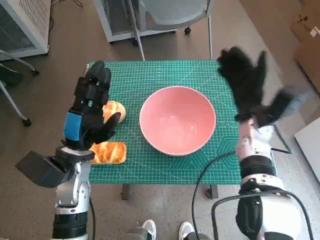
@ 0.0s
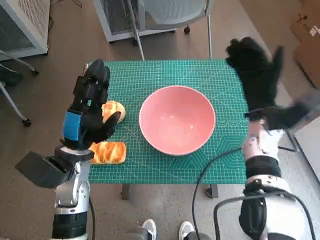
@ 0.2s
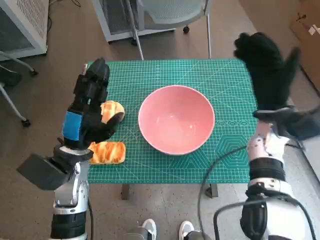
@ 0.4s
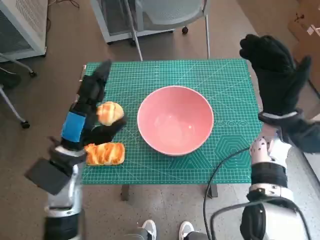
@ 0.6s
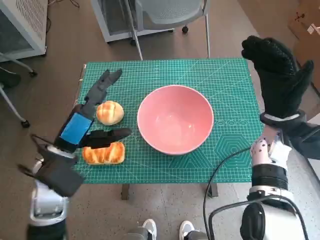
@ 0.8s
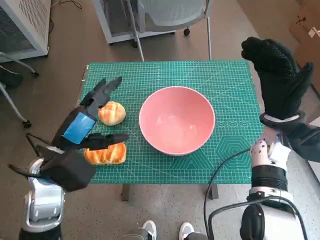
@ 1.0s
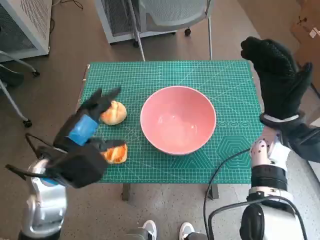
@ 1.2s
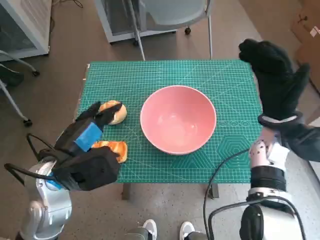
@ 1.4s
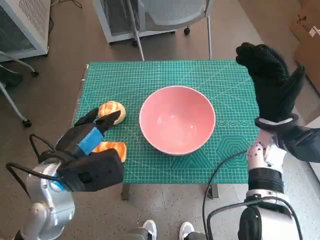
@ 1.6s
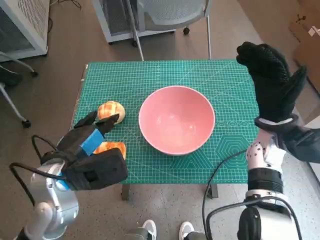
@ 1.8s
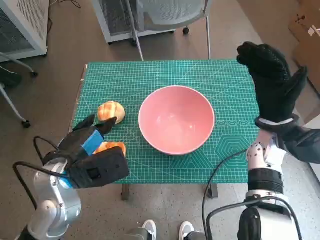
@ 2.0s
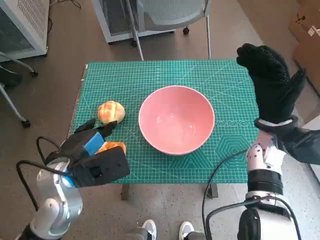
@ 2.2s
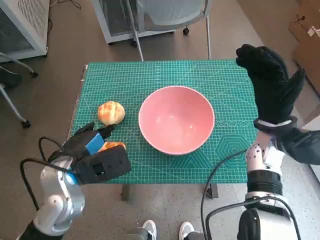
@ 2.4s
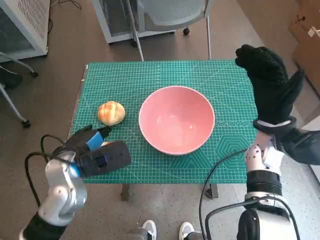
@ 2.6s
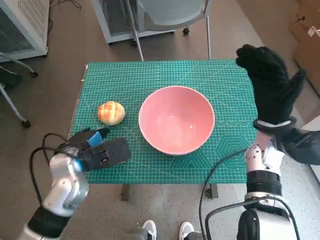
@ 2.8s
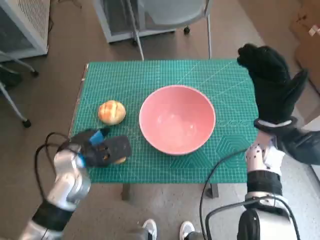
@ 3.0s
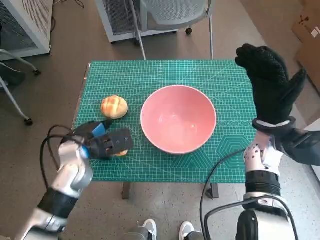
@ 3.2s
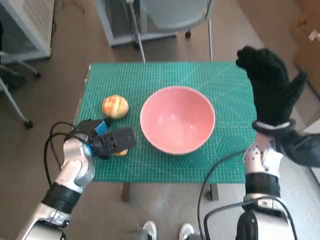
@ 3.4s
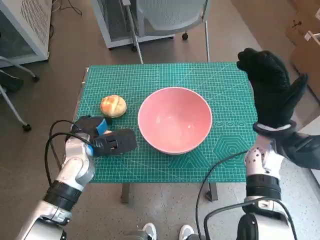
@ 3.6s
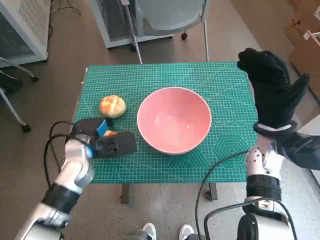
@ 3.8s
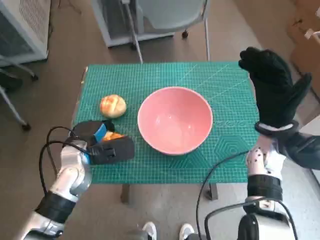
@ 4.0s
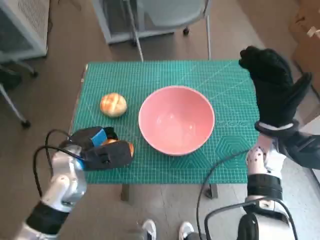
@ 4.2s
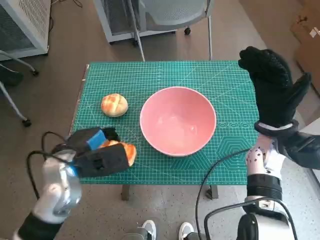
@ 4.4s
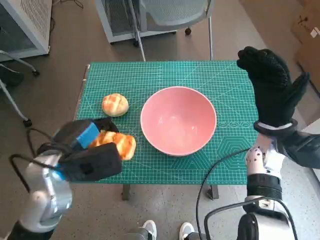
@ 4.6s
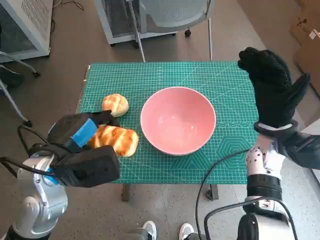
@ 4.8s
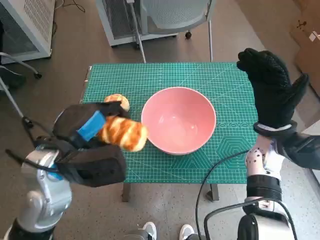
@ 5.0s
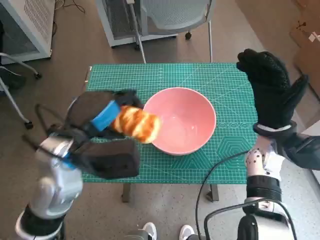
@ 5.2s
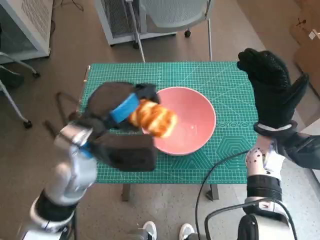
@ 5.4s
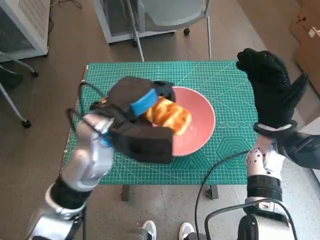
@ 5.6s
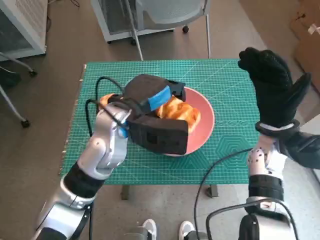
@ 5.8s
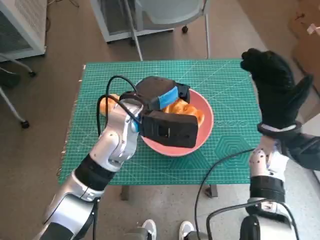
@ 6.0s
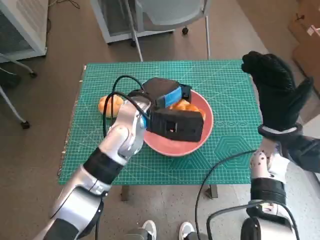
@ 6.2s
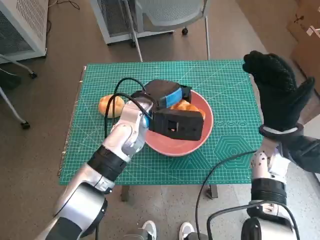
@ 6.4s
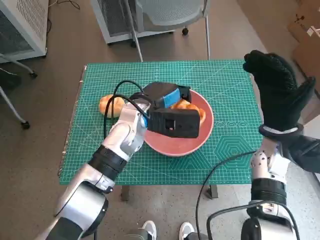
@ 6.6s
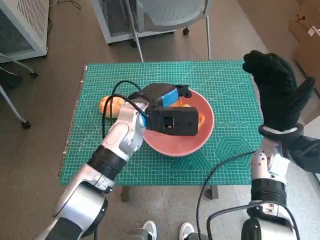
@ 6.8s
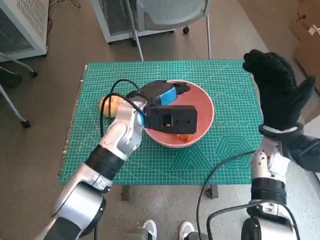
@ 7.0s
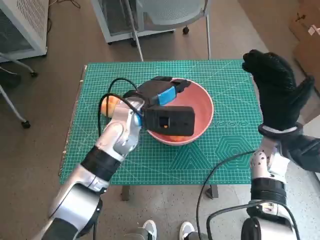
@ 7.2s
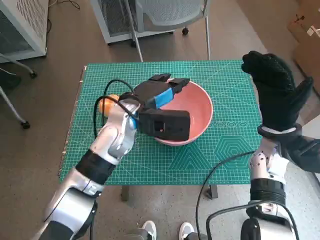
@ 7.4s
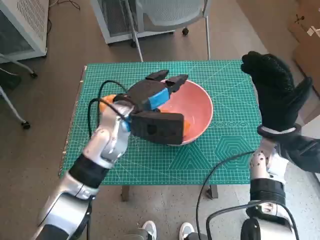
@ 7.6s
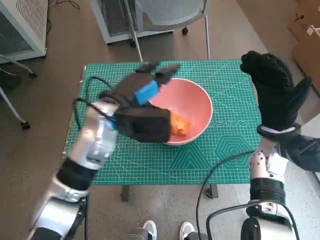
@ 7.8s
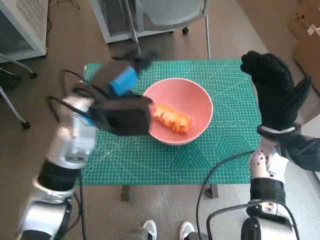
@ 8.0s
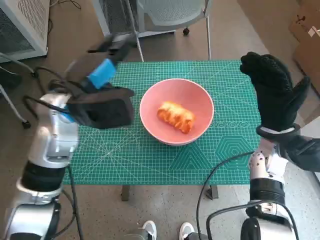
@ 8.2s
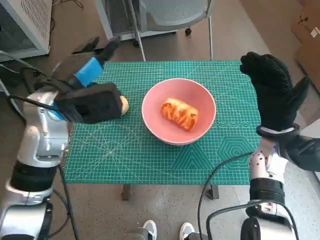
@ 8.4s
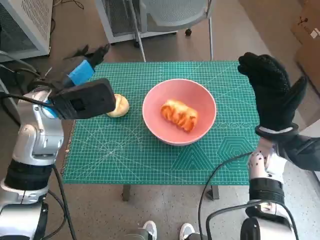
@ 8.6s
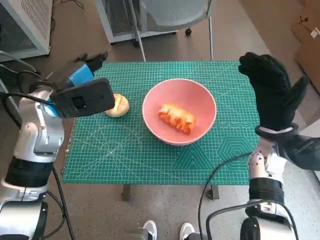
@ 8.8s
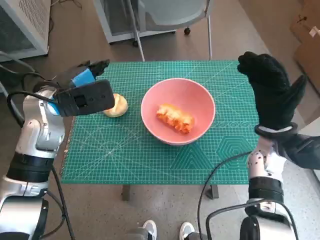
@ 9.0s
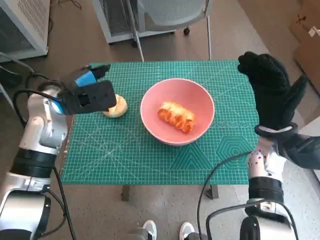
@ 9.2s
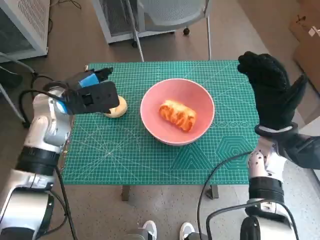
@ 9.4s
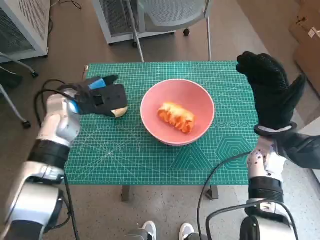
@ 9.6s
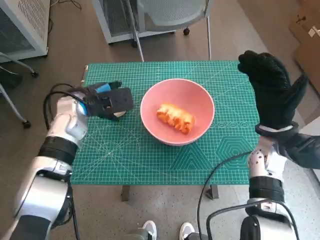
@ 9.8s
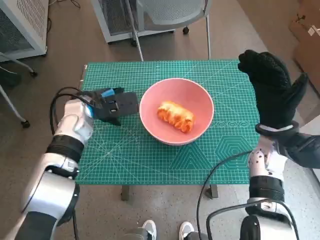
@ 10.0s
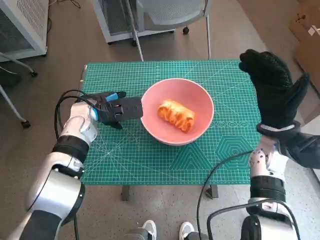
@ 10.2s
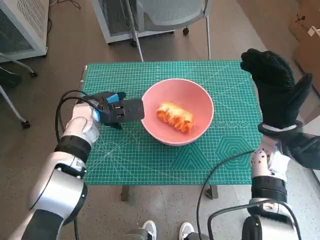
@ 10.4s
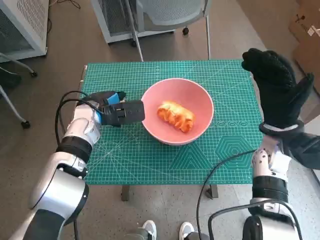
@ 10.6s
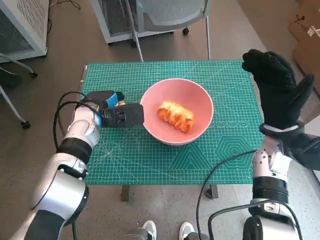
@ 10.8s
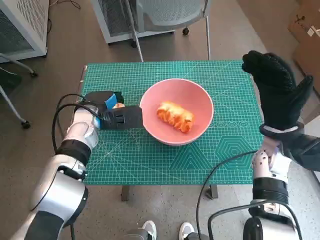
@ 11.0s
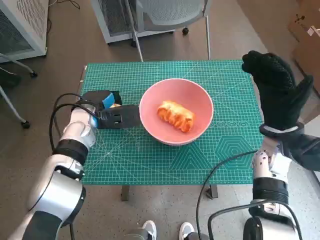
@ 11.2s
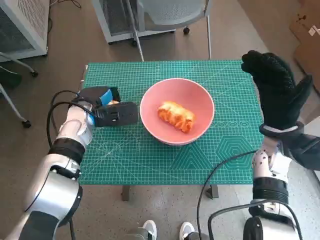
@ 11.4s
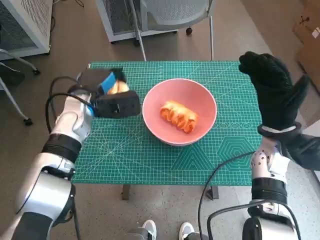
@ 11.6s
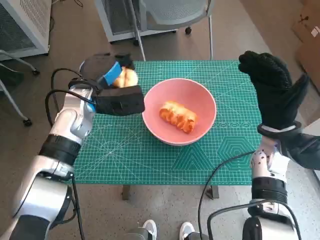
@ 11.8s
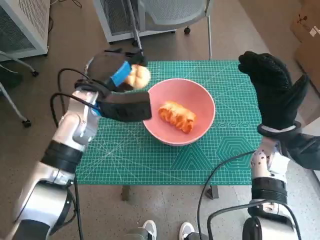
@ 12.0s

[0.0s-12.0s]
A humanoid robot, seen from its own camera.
Step, 0.0s to 3.8s: Grasp the long bread with left hand.
Step, 4.0s to 7.2s: Place the long bread in pink bowl with left hand.
Step, 7.4s to 11.0s: Grasp the round bread with left hand.
0.0s to 1.6s: The left hand moves upward, some 5 cm.
1.6s to 3.0s: The left hand shifts some 10 cm downward and forward.
3.0s to 4.4s: There are only small adjustments of the hands.
4.4s to 6.0s: The left hand travels to the right, forward and upward by approximately 15 cm.
6.0s to 7.6s: The hands move only a little.
7.6s to 9.0s: The left hand is displaced to the left by approximately 10 cm.
9.0s to 10.4s: The left hand goes roughly 10 cm downward.
10.4s to 12.0s: The left hand moves upward, approximately 5 cm.

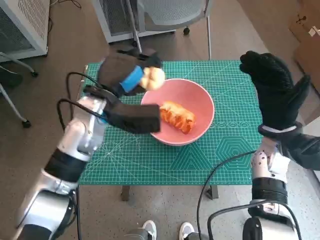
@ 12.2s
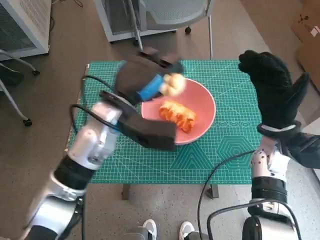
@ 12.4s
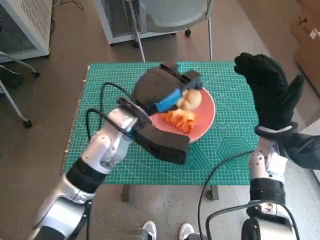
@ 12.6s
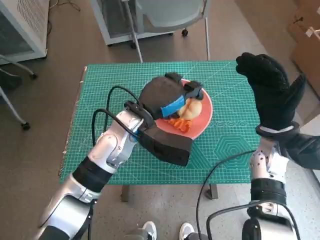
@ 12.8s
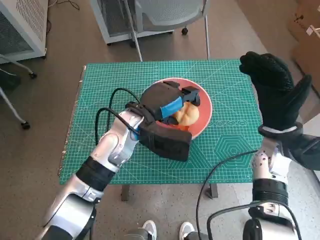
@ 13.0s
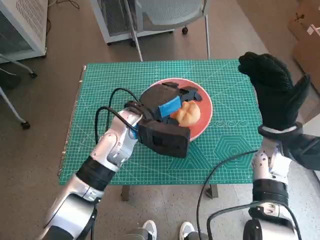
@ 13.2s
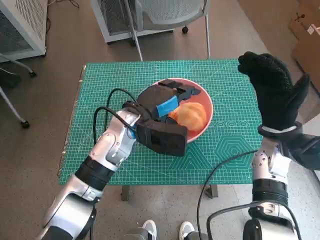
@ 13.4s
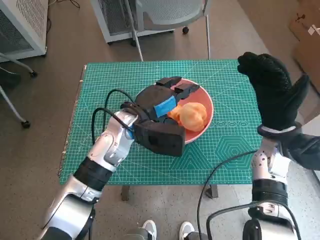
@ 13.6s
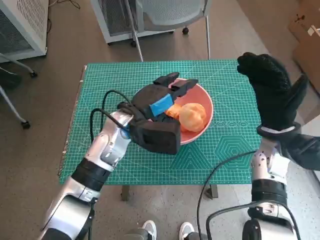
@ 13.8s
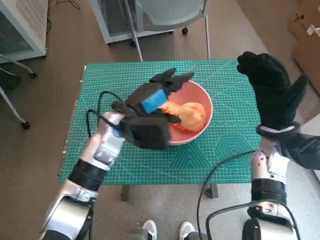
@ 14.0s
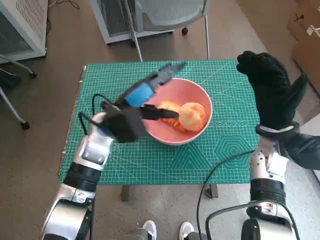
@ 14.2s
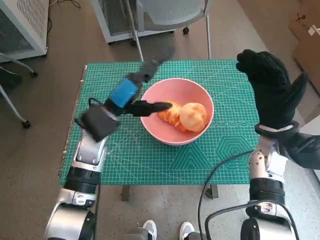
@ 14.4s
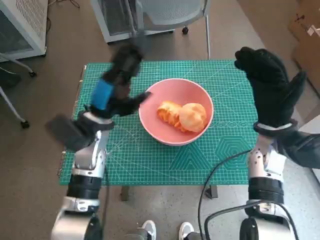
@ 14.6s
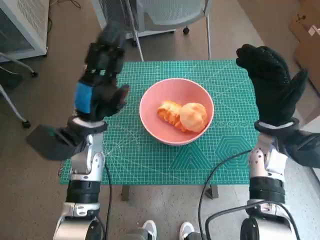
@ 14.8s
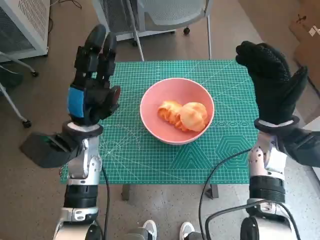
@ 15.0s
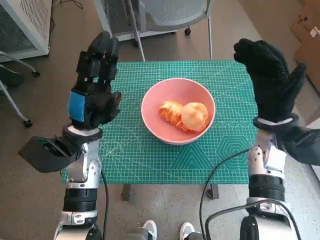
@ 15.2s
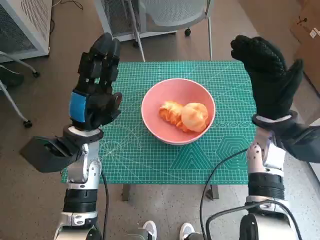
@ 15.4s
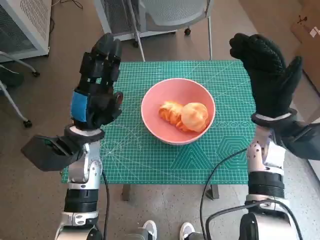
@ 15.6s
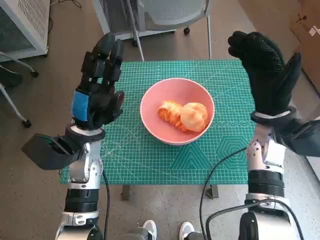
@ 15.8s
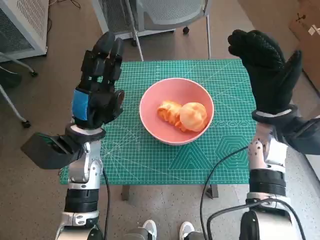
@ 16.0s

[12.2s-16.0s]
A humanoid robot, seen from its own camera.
Step, 12.2s to 13.6s: Place the round bread in pink bowl with left hand.
12.2s to 13.4s: The left hand travels to the right by approximately 5 cm.
13.4s to 14.8s: The left hand travels to the left by some 10 cm.
14.8s to 16.0s: The hands stay close to where they were, moving slightly.
